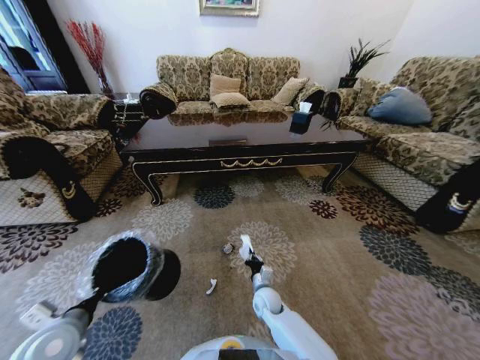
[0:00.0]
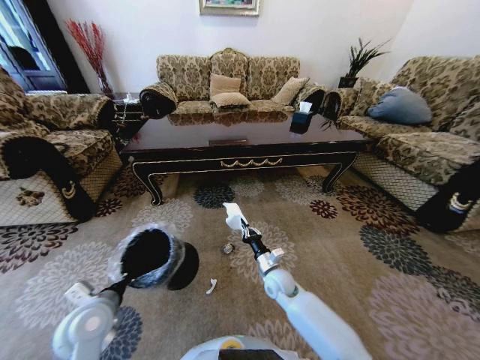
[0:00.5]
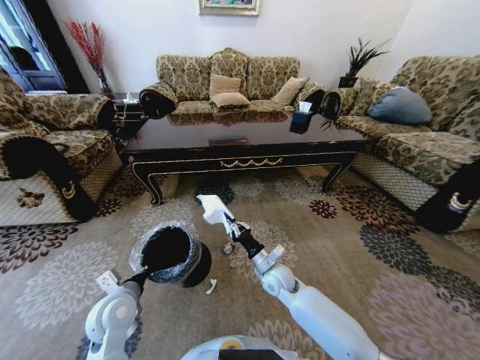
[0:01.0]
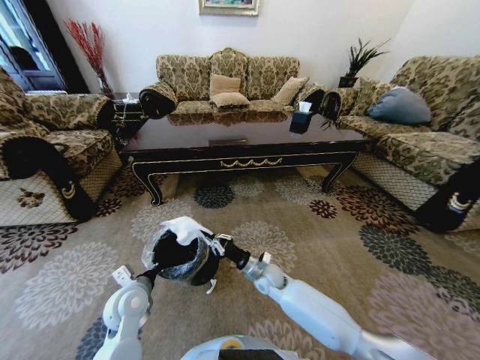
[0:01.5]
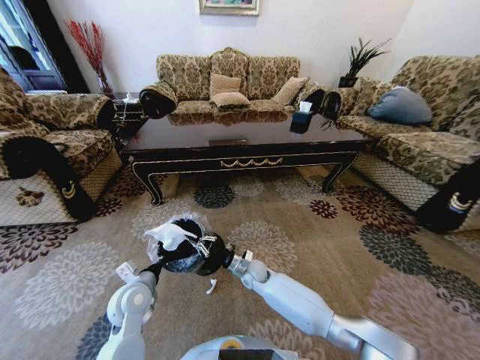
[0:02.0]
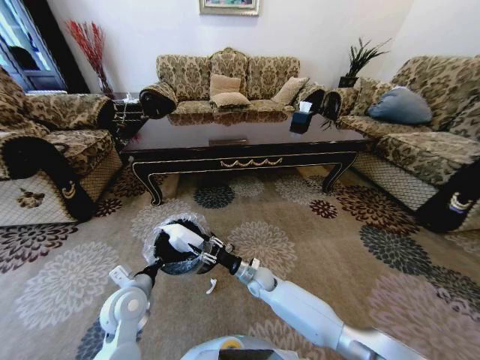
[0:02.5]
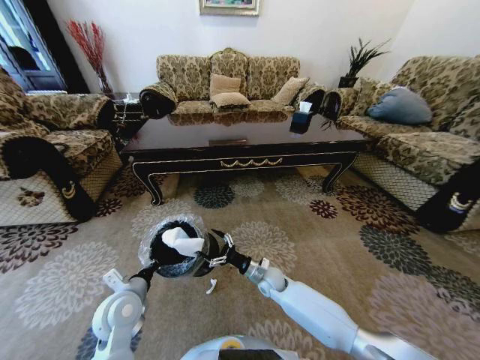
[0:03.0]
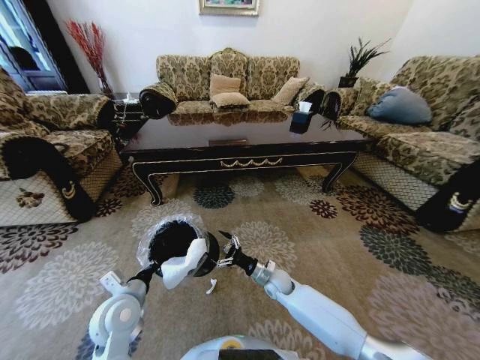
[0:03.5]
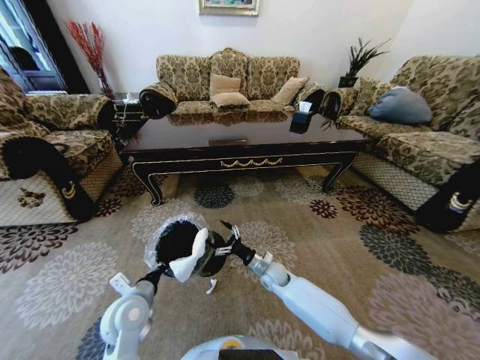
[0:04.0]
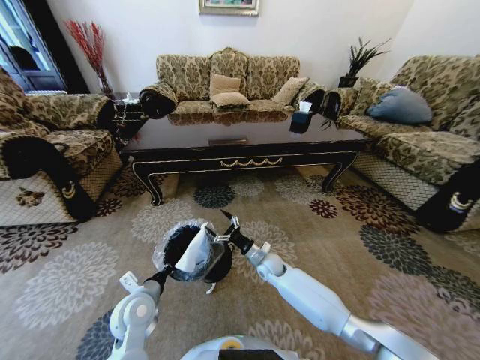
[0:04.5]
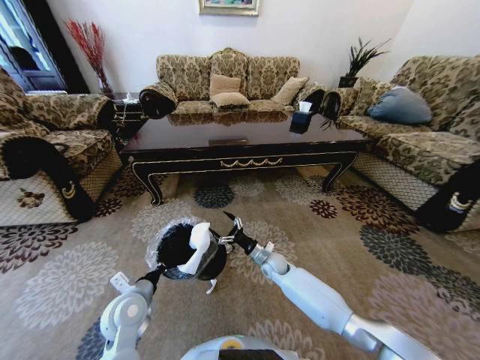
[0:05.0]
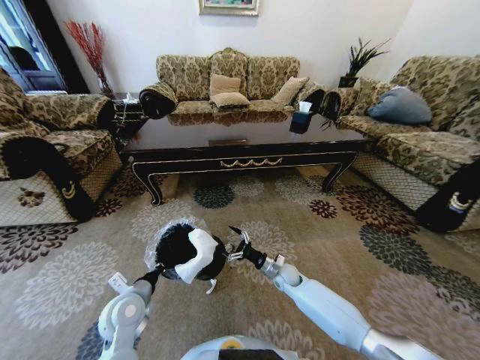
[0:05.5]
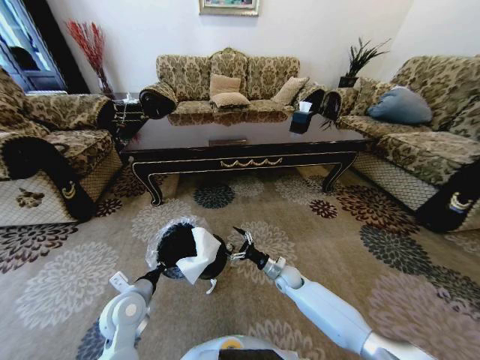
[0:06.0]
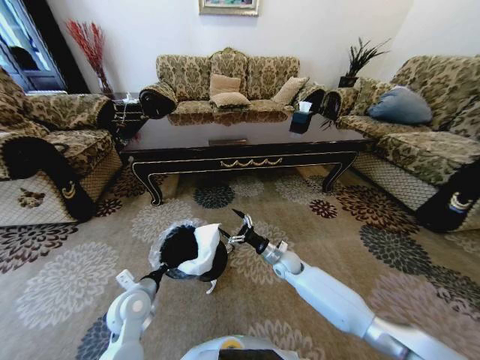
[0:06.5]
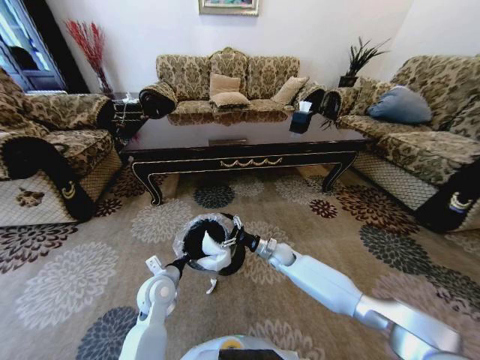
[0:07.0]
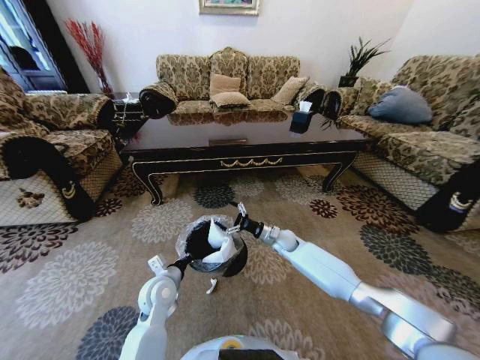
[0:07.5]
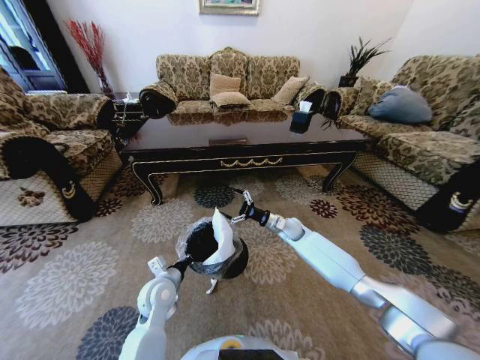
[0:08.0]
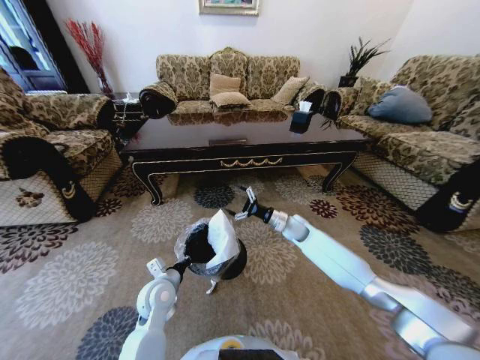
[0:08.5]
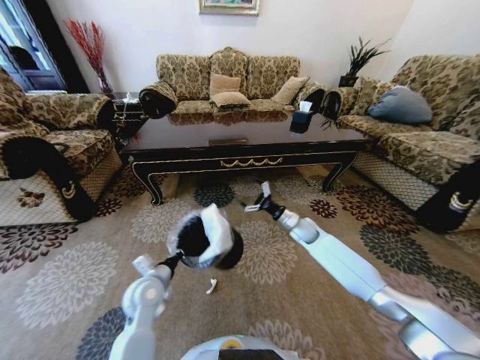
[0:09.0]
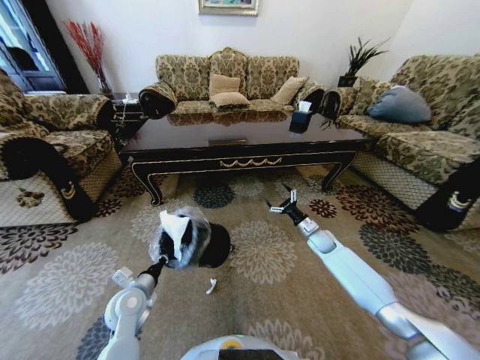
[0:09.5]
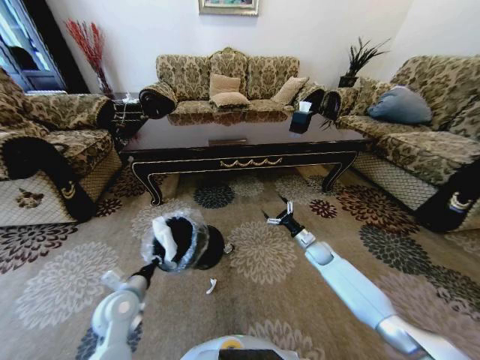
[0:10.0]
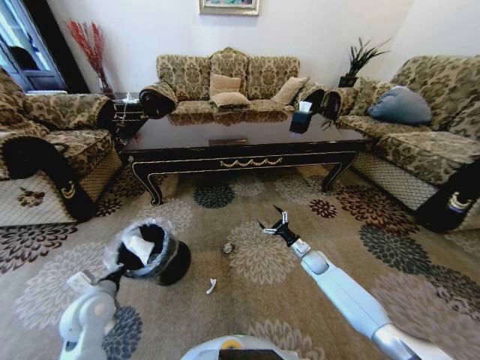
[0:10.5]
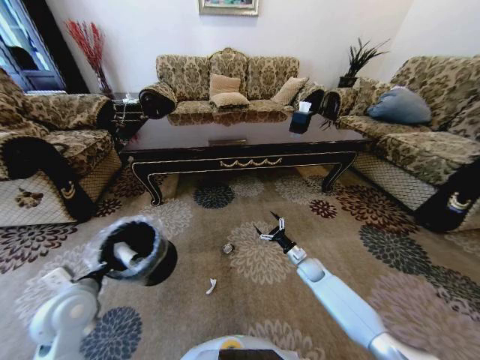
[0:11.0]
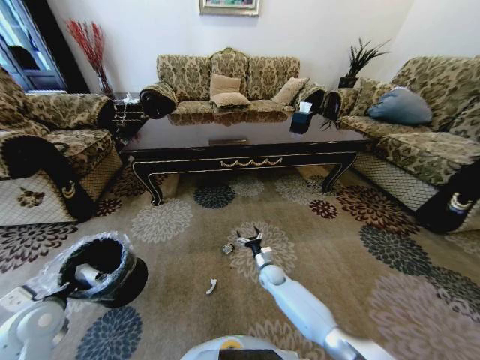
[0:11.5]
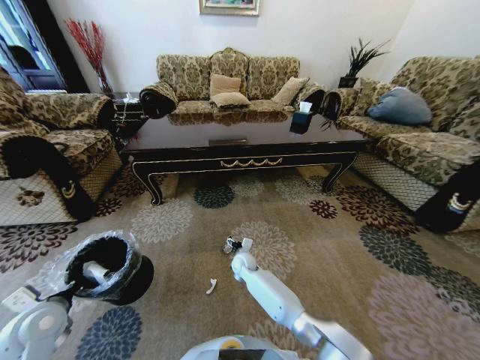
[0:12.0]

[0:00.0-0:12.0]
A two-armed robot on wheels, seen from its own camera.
Task of the whole recording: Move to the front of the table and pick up the trash from the floor, then place it into the trash bin.
0:00.0 to 0:02.0: The left gripper heads to the right and forward, covering some 15 cm; the right gripper travels forward and upward by roughly 10 cm.
0:02.0 to 0:04.0: The right gripper moves to the right, roughly 10 cm, and opens.
0:04.0 to 0:06.0: The right gripper is displaced to the right by about 5 cm.
0:06.0 to 0:08.0: The right gripper travels forward and upward by about 20 cm. Meanwhile the left gripper moves to the right, roughly 5 cm.
0:08.0 to 0:10.0: The left gripper is displaced to the left by approximately 10 cm. Meanwhile the right gripper is displaced to the right, downward and backward by roughly 15 cm.
0:10.0 to 0:12.0: The left gripper is displaced to the left by approximately 15 cm; the right gripper heads to the left, covering roughly 30 cm.

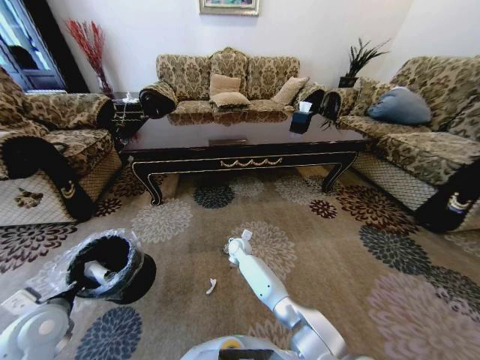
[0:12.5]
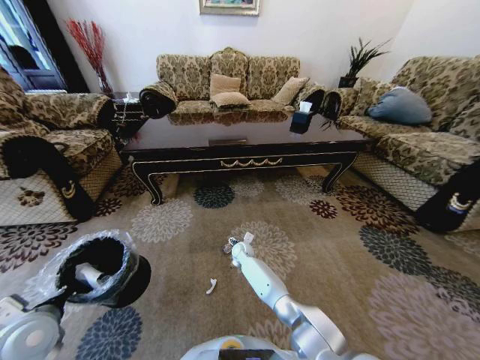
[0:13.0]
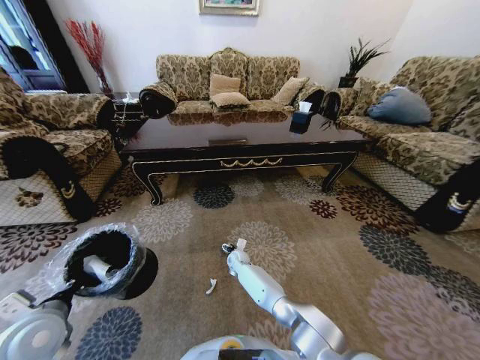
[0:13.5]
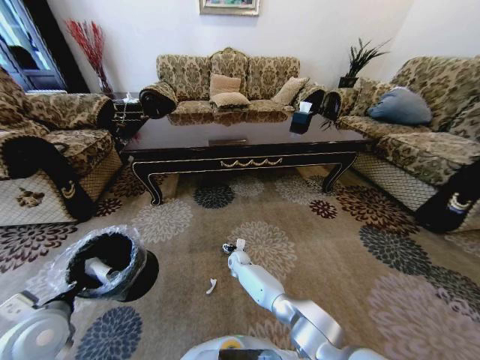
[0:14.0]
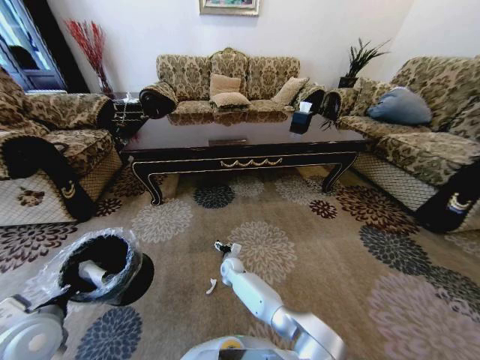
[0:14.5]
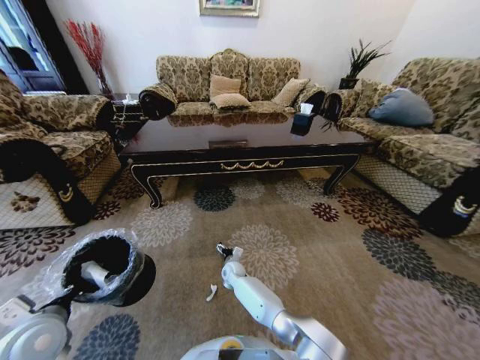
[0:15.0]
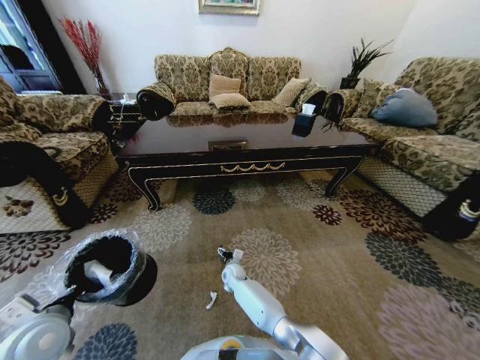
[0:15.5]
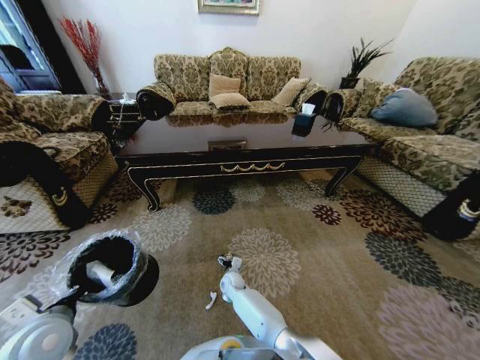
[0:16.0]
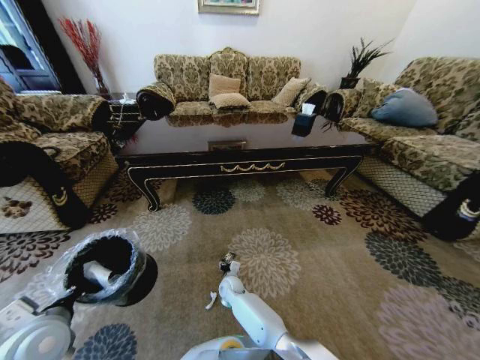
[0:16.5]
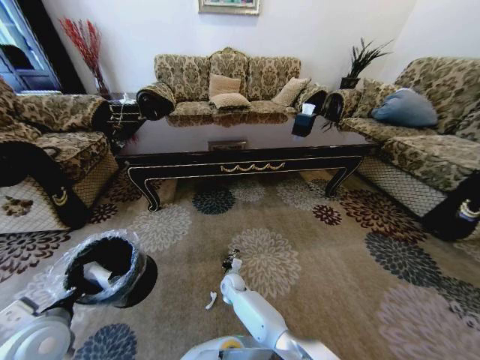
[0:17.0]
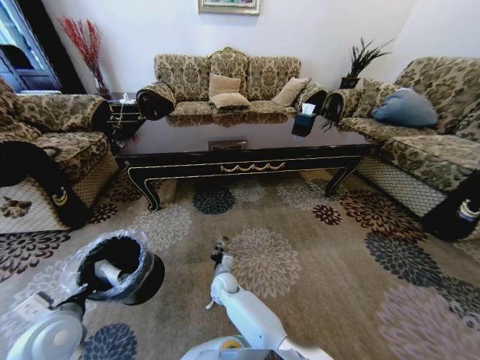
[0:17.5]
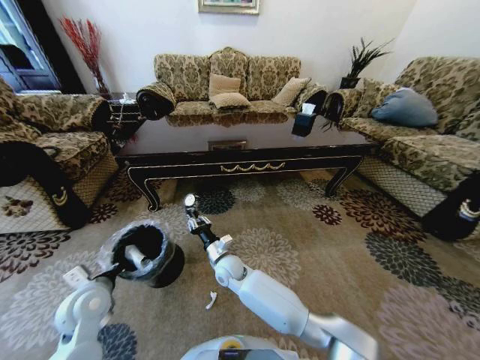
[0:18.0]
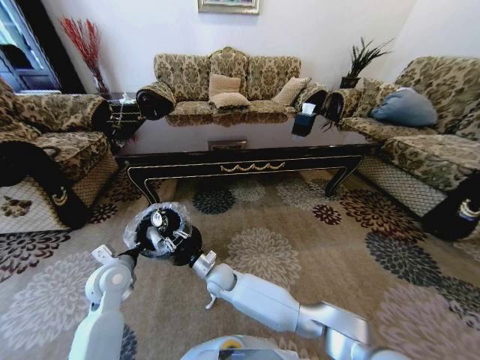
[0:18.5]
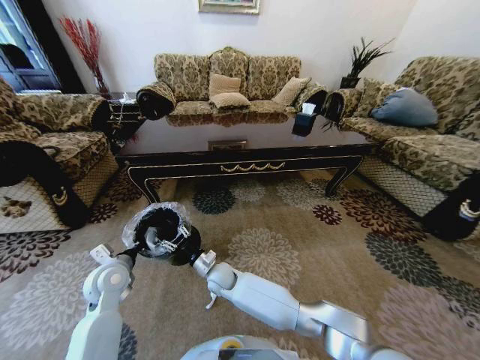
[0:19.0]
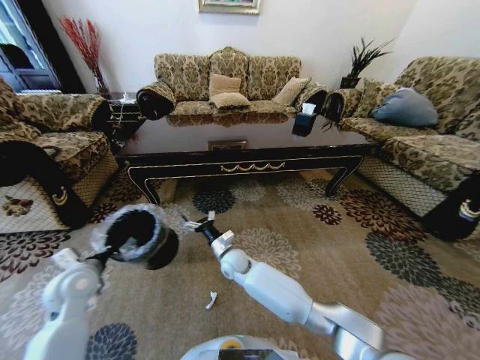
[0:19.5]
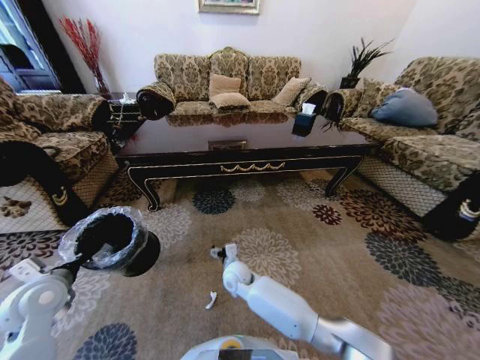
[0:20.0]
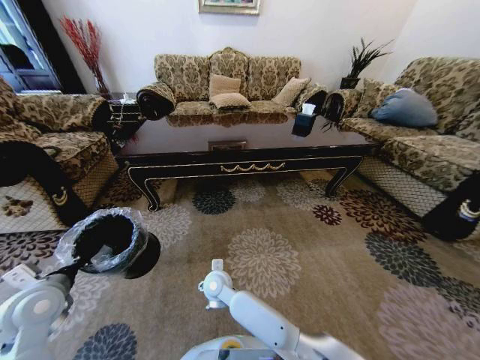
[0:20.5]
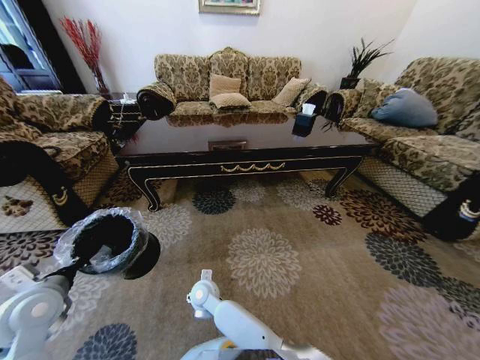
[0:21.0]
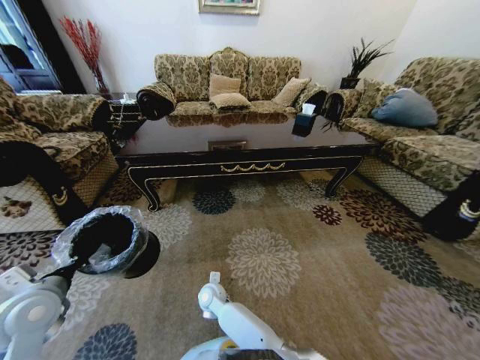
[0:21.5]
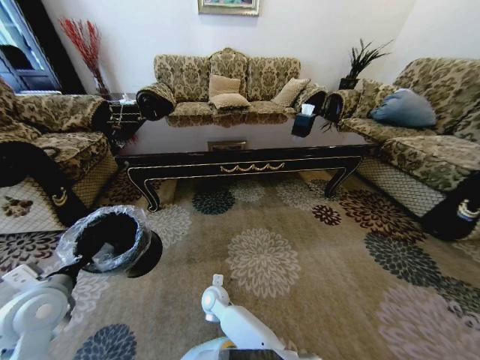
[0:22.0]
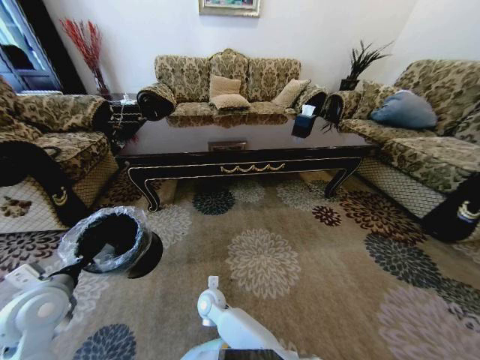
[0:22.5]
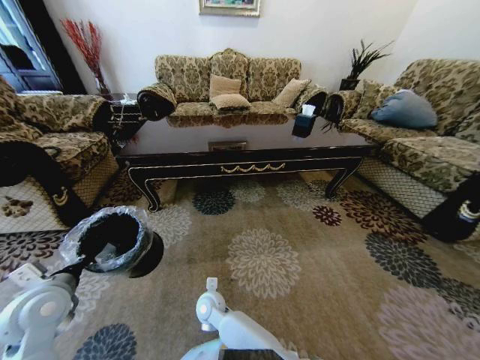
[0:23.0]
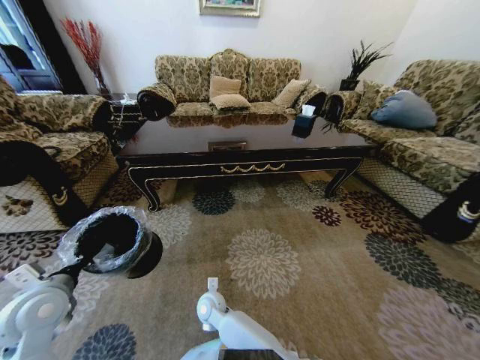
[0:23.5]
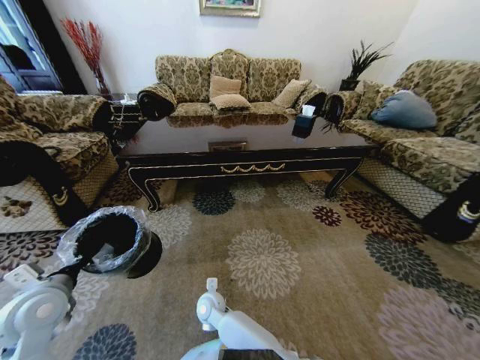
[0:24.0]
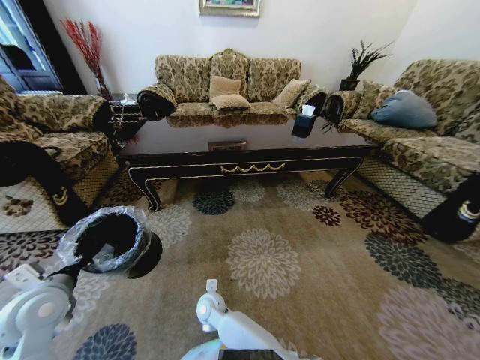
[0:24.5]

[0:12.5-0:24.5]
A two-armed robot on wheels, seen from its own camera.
Task of the whole recording: Move to the front of the table and pick up the trash from the floor, then place it into the trash bin.
0:12.5 to 0:14.5: The right gripper moves downward and backward, approximately 10 cm.
0:14.5 to 0:16.5: The right gripper heads backward, covering some 5 cm.
0:16.5 to 0:18.5: The right gripper heads upward, covering about 15 cm, and closes its fingers. Meanwhile the left gripper travels forward by roughly 15 cm.
0:18.5 to 0:20.5: The left gripper shifts some 15 cm to the left, backward and upward; the right gripper opens.
0:20.5 to 0:22.5: The right gripper goes some 10 cm downward, and closes its fingers.

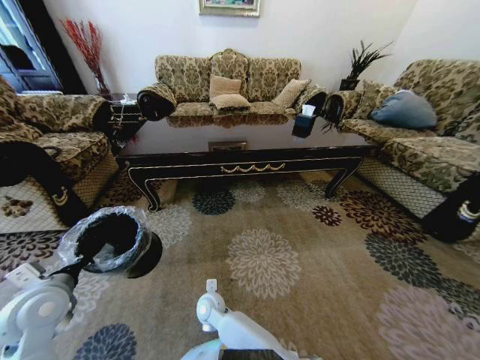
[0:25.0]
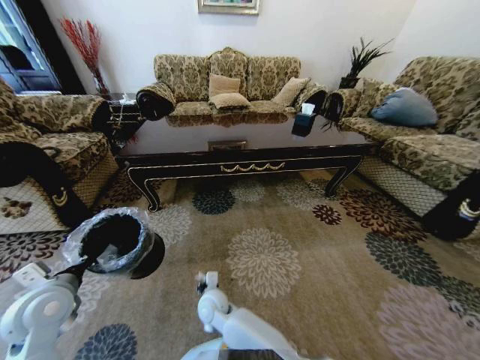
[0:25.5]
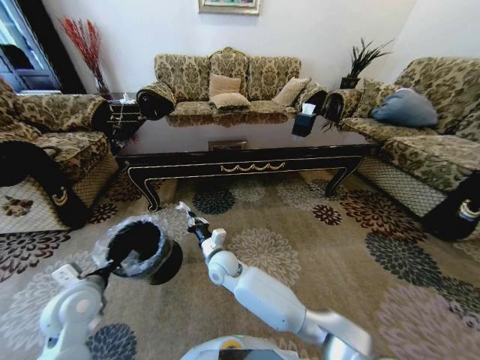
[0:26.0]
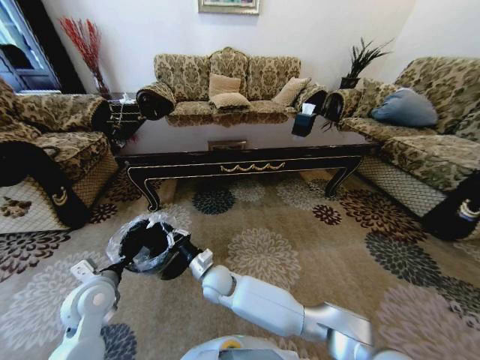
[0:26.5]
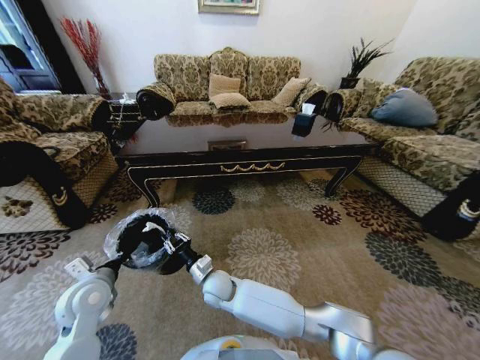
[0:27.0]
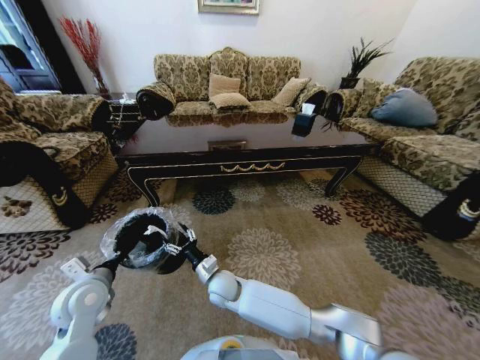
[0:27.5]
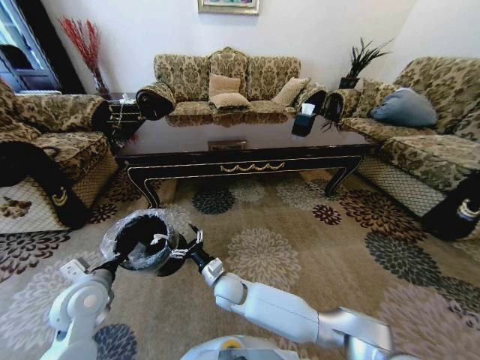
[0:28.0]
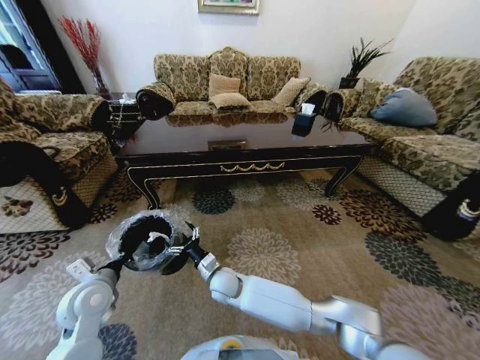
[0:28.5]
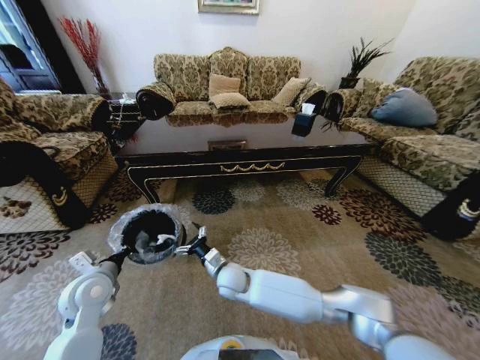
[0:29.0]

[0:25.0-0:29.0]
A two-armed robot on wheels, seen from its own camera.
Task of the whole recording: Move to the front of the table and pick up the trash from the floor, then place it into the trash bin.
0:25.0 to 0:27.0: The left gripper moves to the right, some 5 cm, while the right gripper travels upward by about 10 cm.
0:27.0 to 0:29.0: The right gripper opens up.
